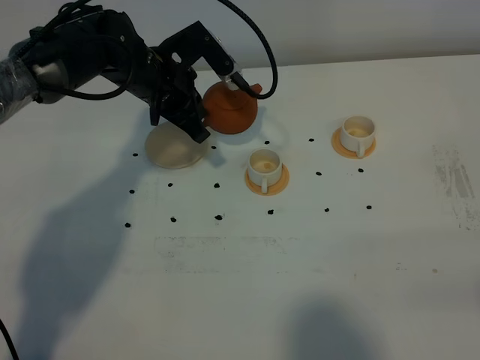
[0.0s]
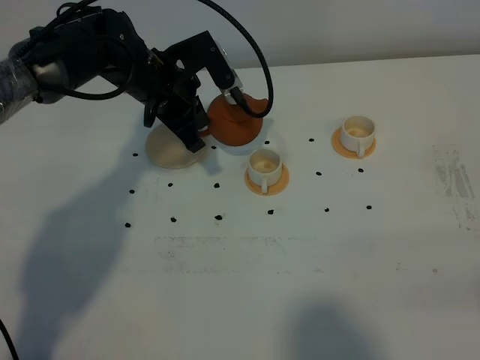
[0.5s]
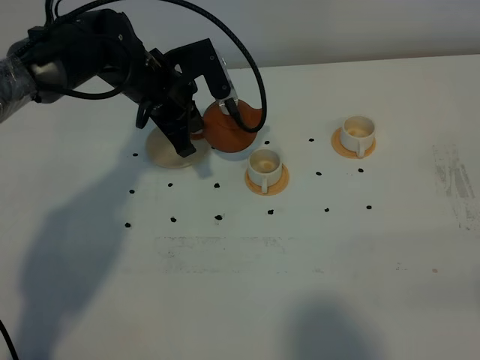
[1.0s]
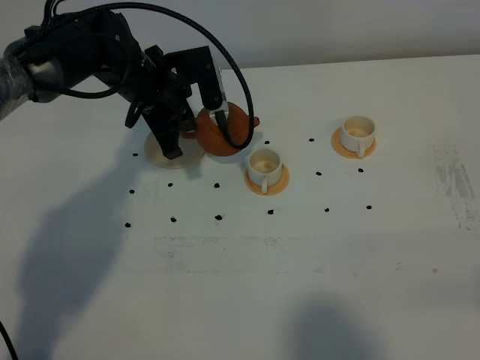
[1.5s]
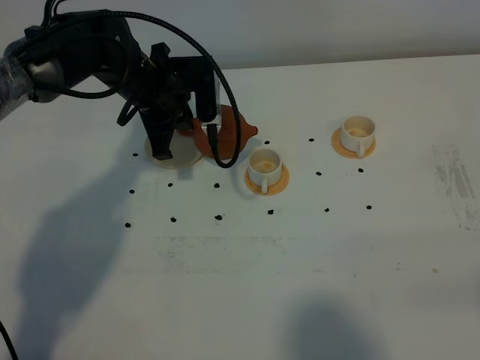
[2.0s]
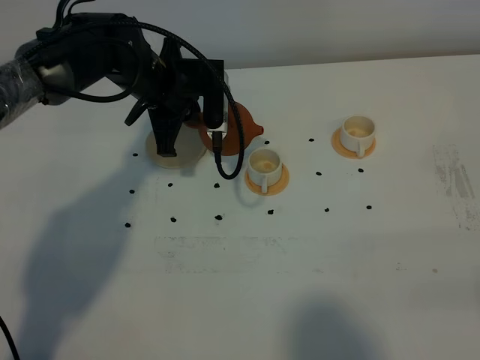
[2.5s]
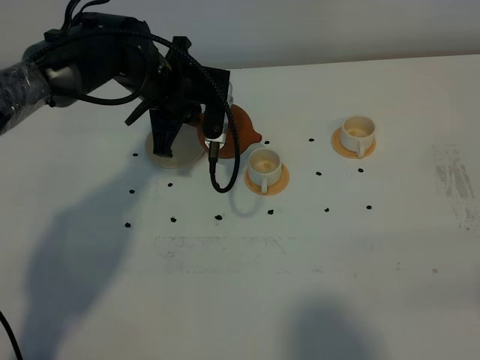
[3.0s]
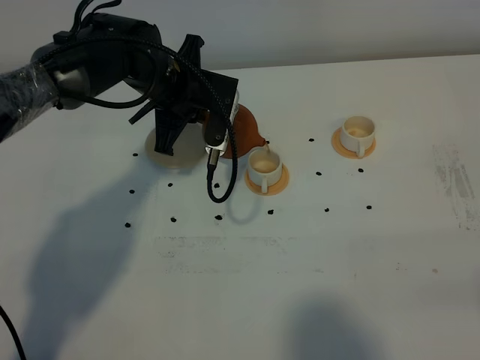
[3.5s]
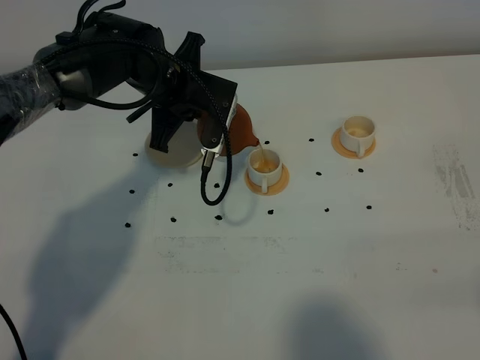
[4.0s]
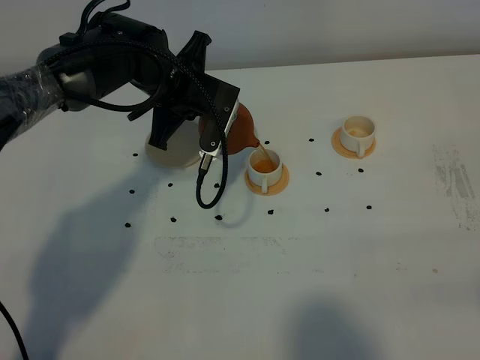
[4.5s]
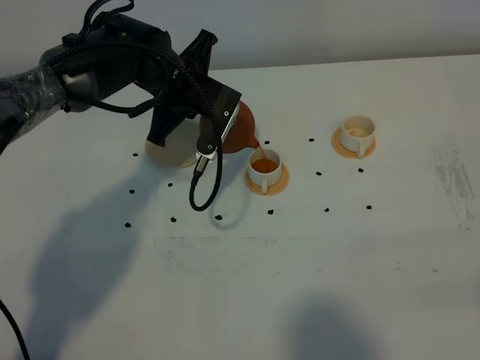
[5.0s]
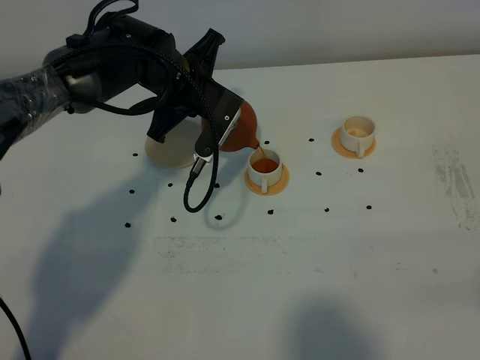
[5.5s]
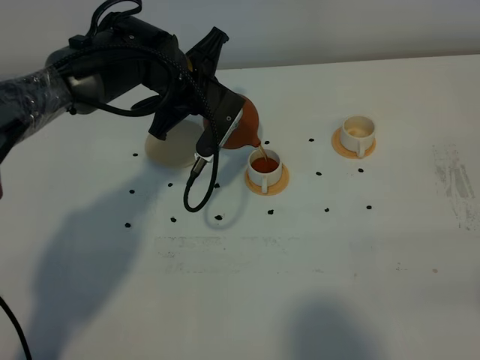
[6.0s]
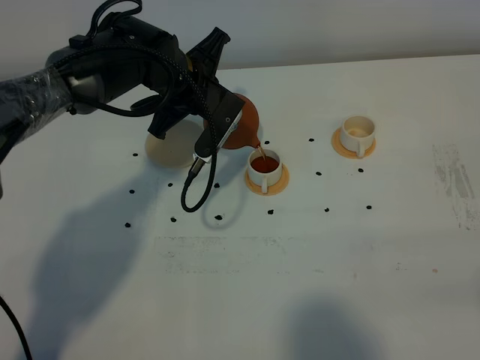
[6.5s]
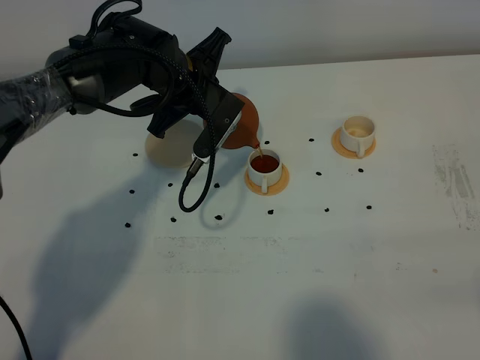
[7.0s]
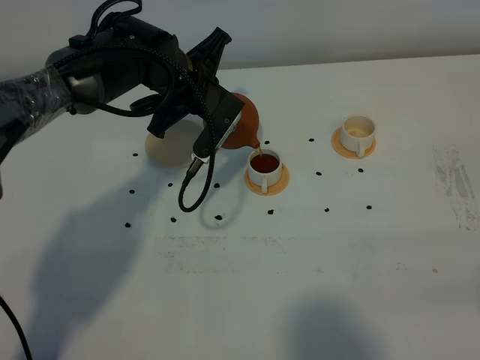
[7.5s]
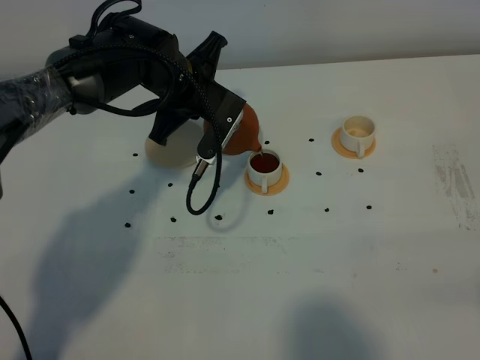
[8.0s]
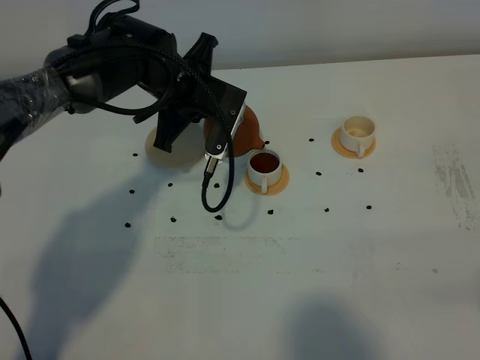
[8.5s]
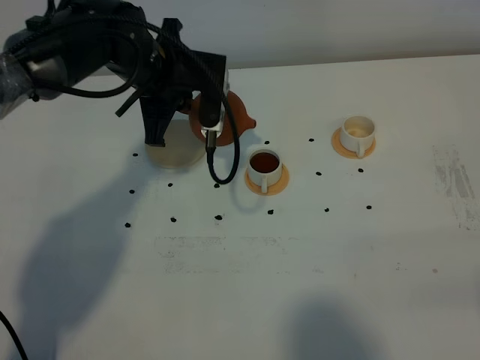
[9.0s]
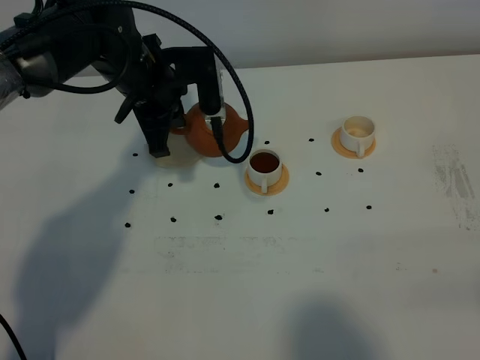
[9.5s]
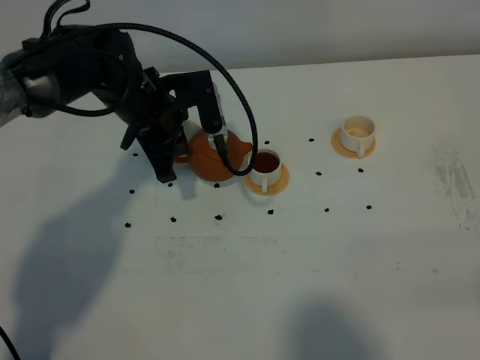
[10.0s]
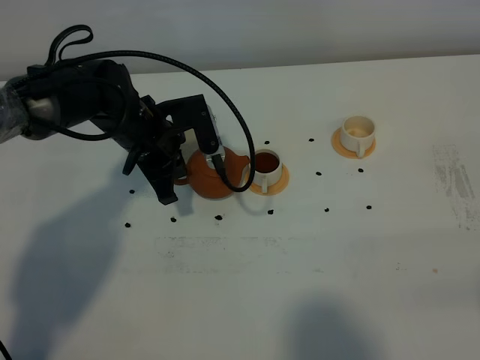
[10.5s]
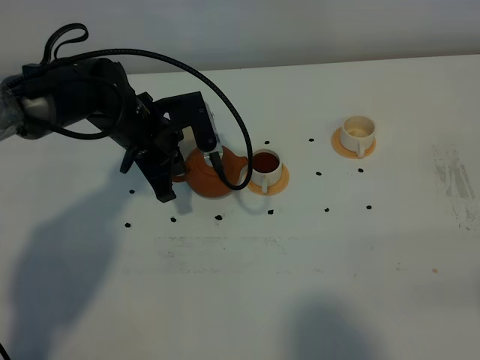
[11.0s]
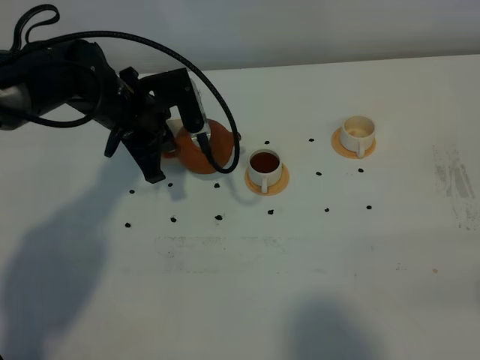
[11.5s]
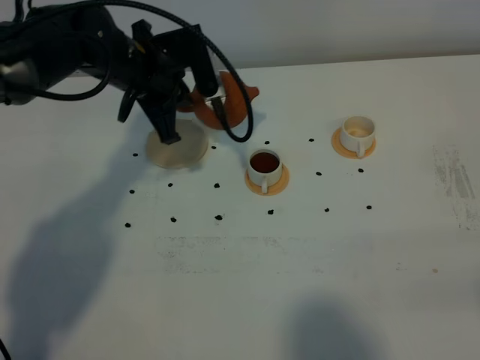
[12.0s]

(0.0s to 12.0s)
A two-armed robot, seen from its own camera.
Task of the whole recording: grasp the brown teapot and pour the tea into the two white teacups one by one, put the brown teapot back in its original place.
4.0s - 6.0s: The grippers move only a little.
6.0s - 8.0s: Both grippers stay about where they are.
8.0s - 10.0s: The left gripper changes place by some 5 cm.
10.0s - 12.0s: The grippers stay close to where they were, moving slightly.

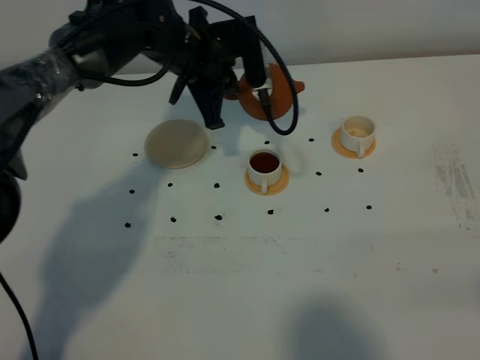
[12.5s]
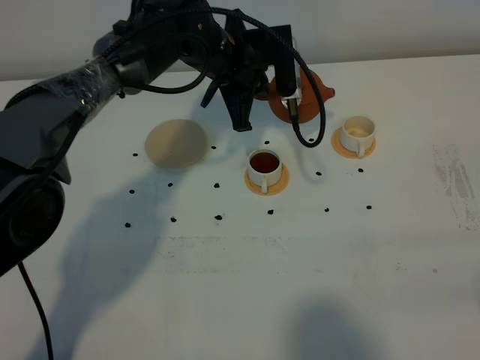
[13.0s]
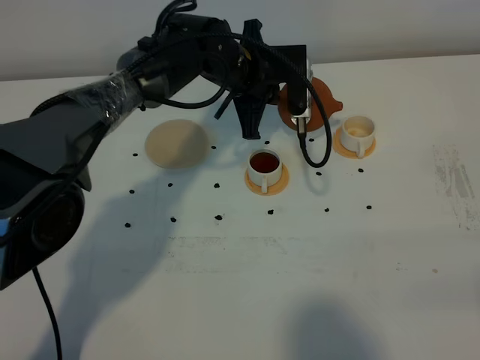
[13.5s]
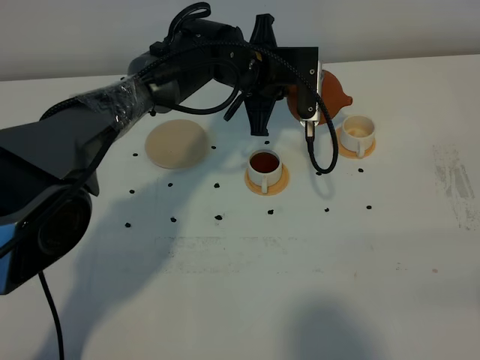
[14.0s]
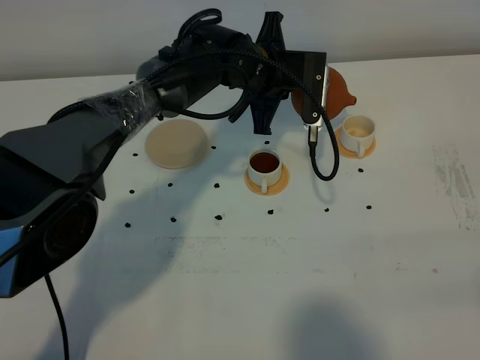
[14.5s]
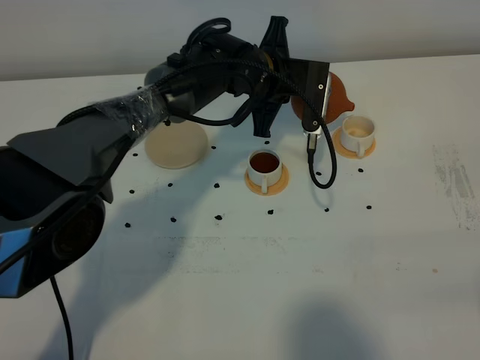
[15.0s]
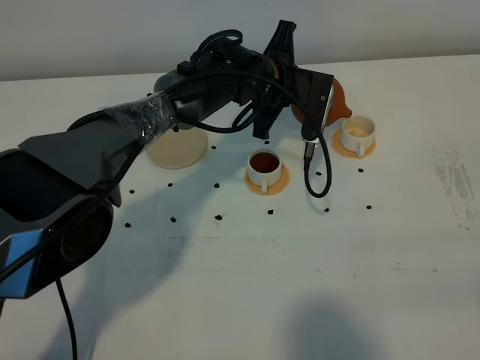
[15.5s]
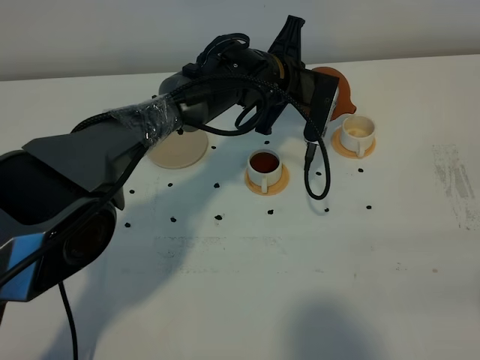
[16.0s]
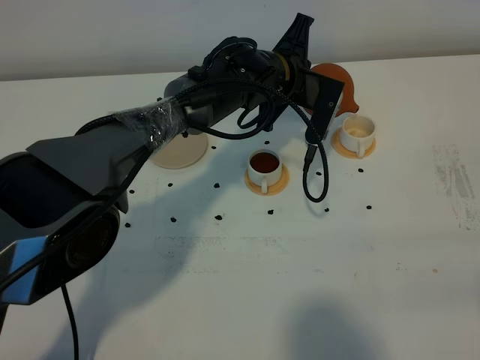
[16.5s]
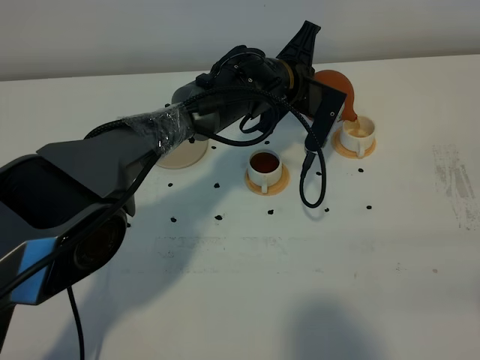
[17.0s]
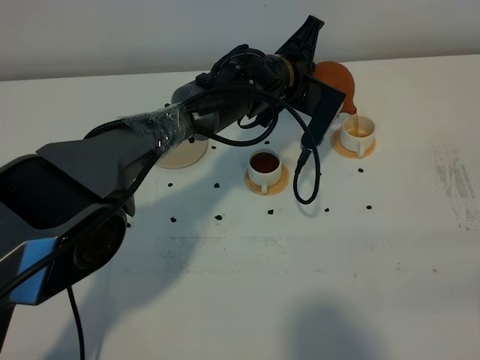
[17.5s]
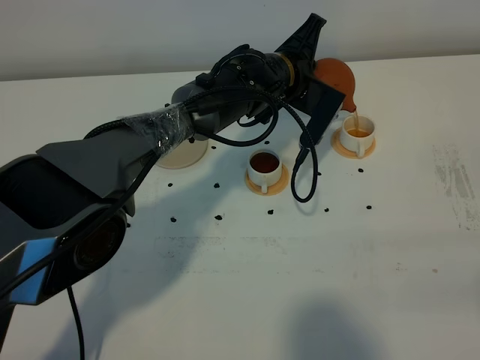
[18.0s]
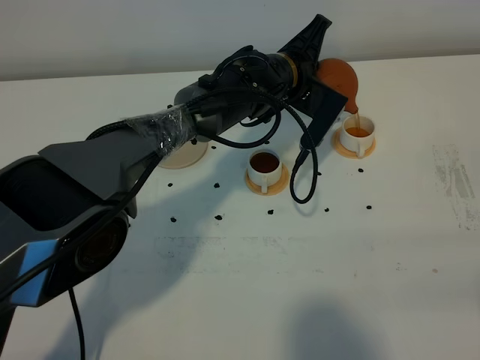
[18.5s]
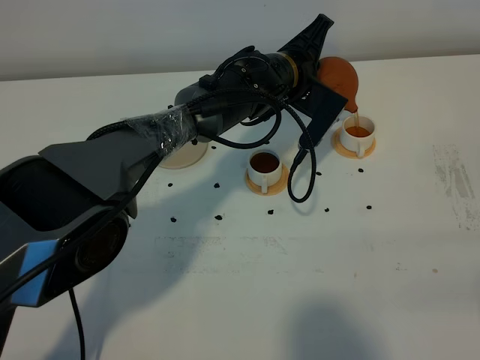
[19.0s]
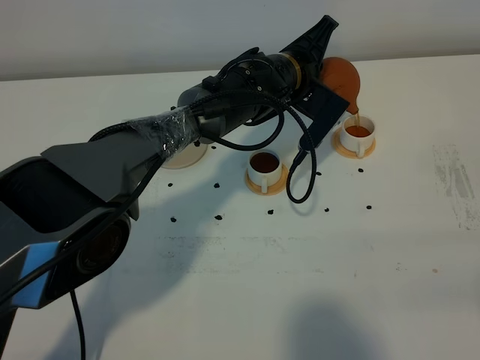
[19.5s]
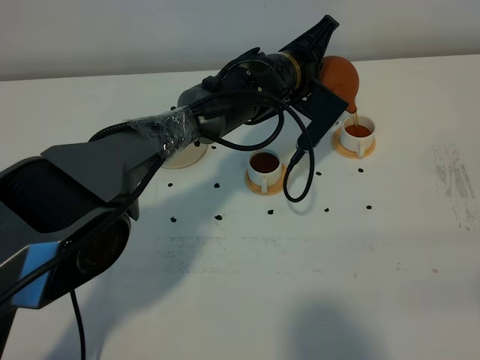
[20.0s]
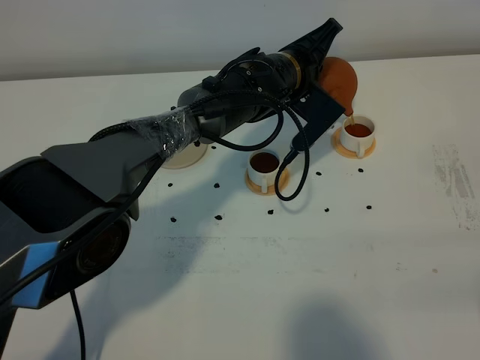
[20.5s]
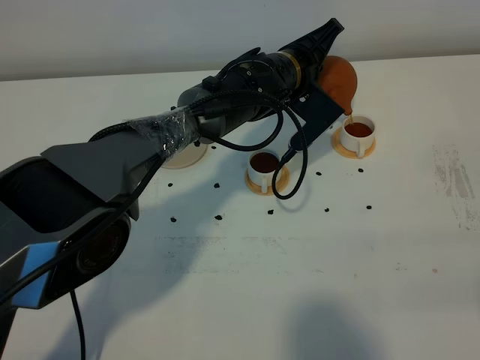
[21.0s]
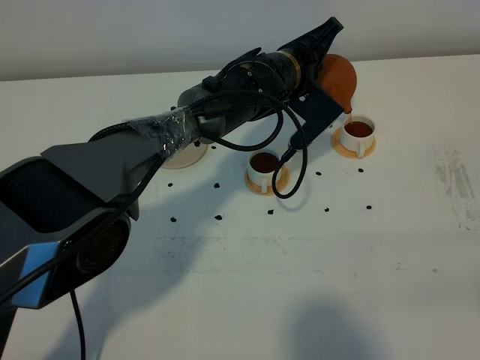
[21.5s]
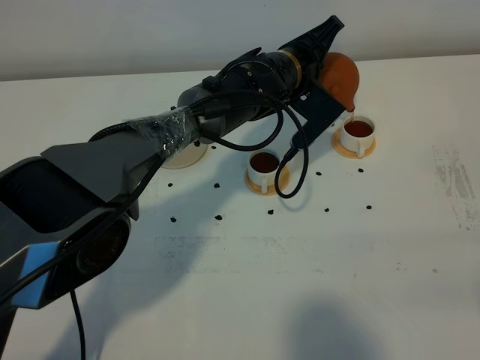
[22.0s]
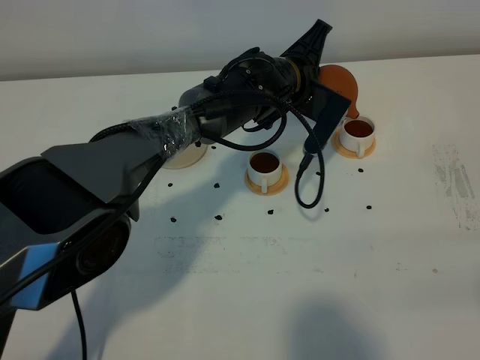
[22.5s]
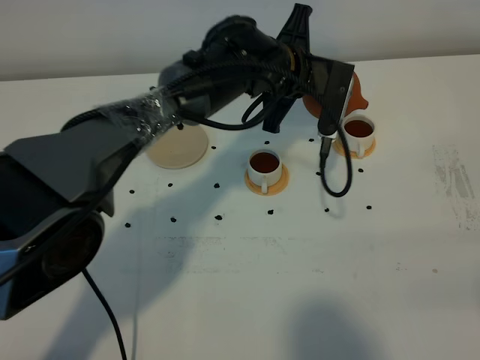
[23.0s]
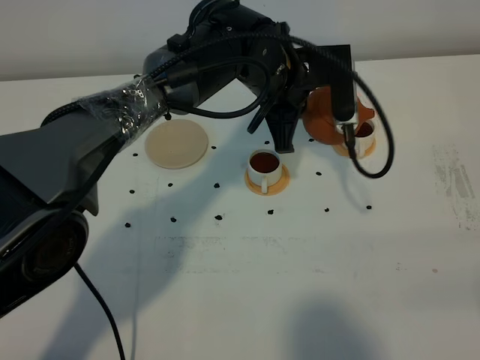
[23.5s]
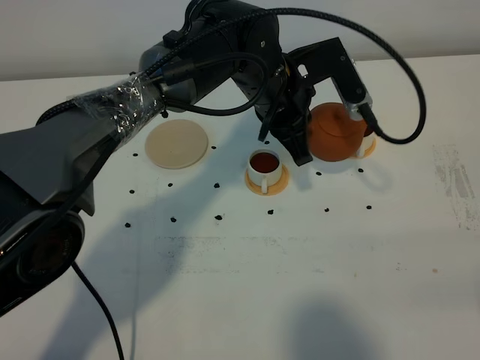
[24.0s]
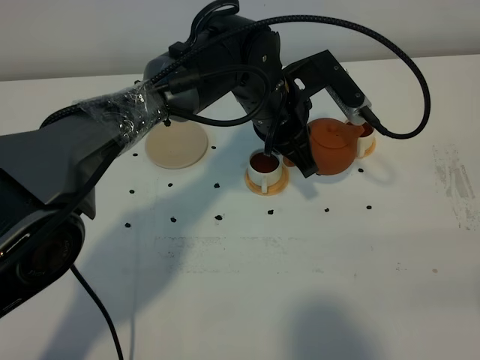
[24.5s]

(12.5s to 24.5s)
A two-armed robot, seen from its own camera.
Task of the whole recording: grasp the brown teapot and pour the tea into the two white teacups one by one, put the brown teapot back in its original place.
Step, 12.5s - 23.0s: Pour tea into the teacup with the left gripper.
12.5s - 14.5s: The left gripper moves to the right, roughly 10 cm.
16.5s - 18.5s: The grippers make only small movements.
18.5s - 22.5s: The grippers stay close to where they were, moving slightly.
22.5s - 24.5s: The left gripper shifts some 5 cm backward.

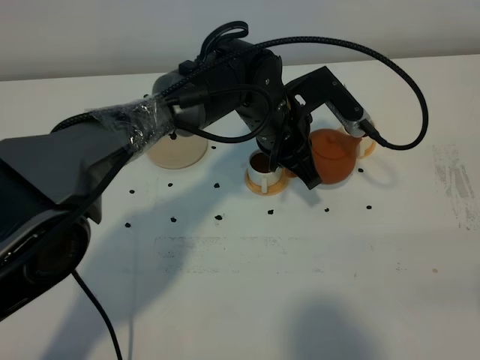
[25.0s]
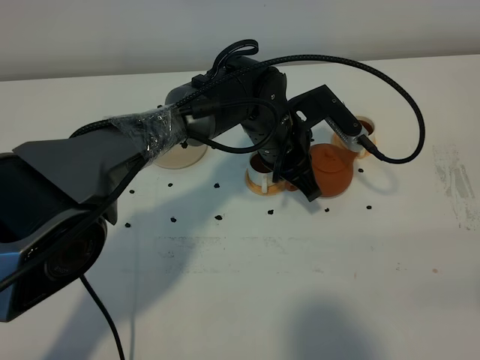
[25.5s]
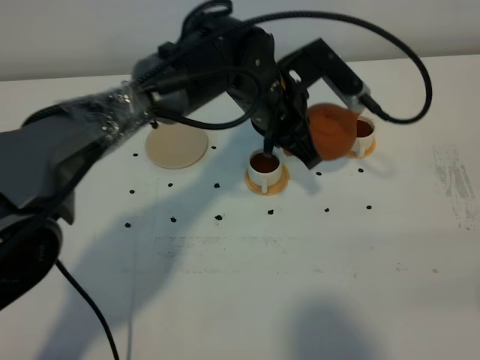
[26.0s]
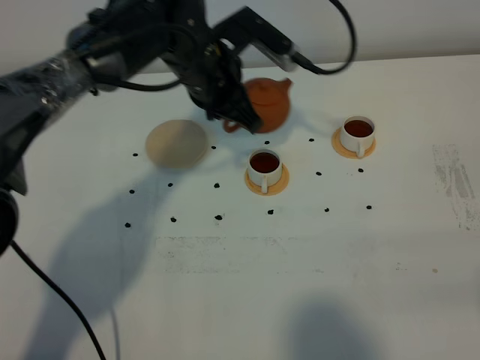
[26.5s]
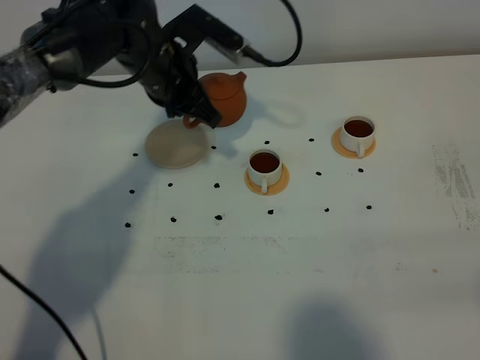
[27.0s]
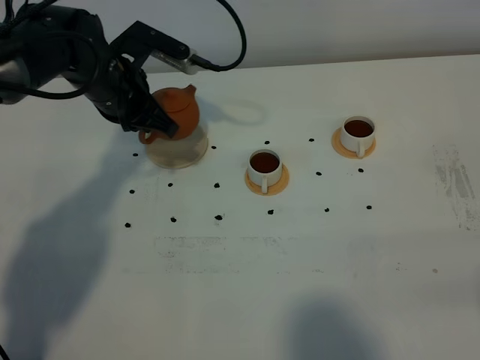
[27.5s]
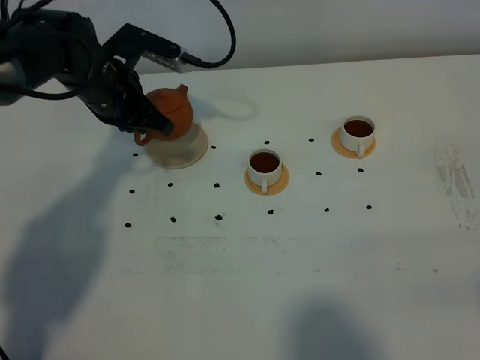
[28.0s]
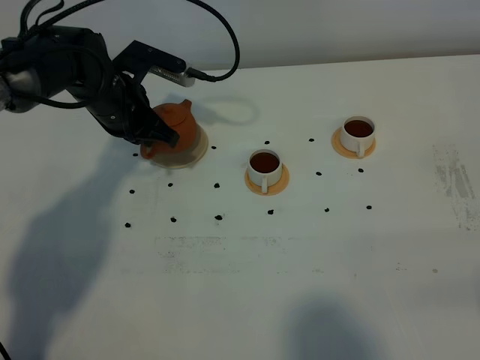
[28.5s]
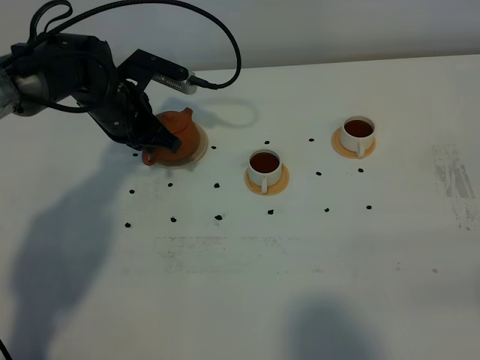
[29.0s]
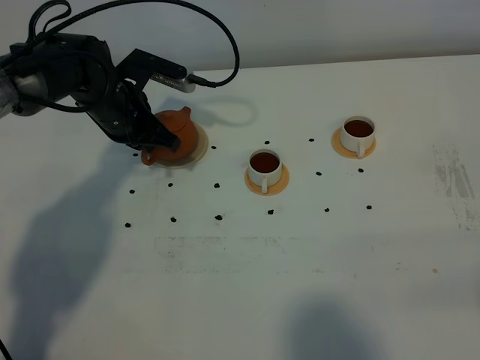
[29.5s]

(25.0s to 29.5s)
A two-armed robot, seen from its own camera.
Task of the whole recording: grasp the brown teapot and pour the tea into the two white teacups one by one, put the brown teapot back in its original place.
25.0s - 27.0s: The left gripper shifts approximately 15 cm to the left.
27.0s - 29.5s: The left gripper is displaced to the left and downward by approximately 10 cm.
